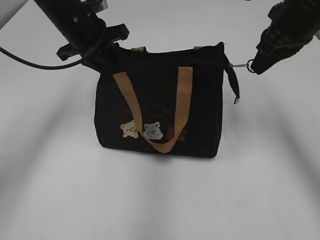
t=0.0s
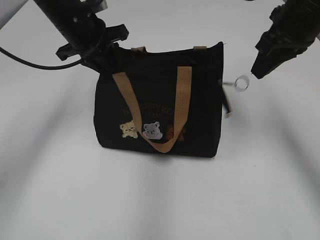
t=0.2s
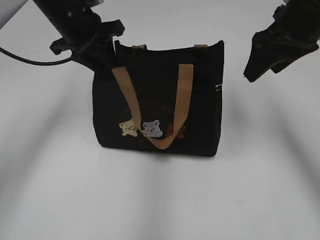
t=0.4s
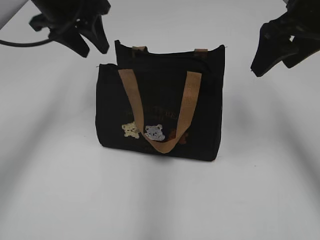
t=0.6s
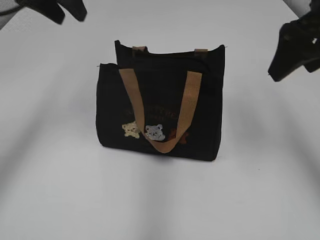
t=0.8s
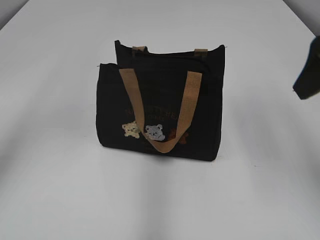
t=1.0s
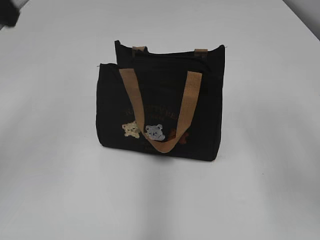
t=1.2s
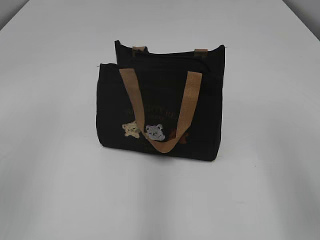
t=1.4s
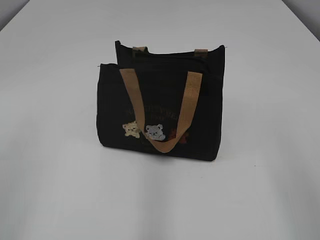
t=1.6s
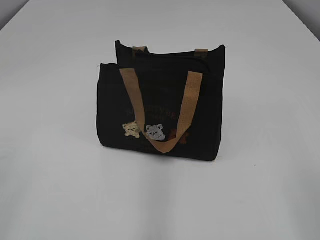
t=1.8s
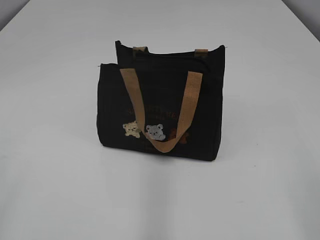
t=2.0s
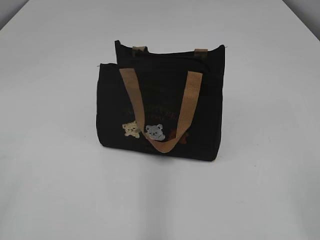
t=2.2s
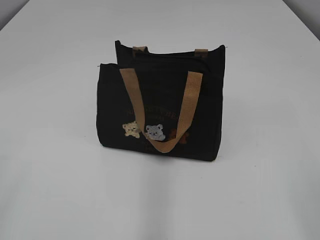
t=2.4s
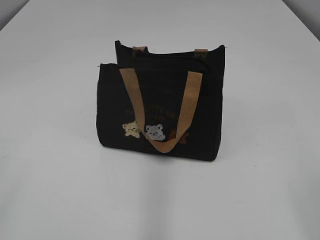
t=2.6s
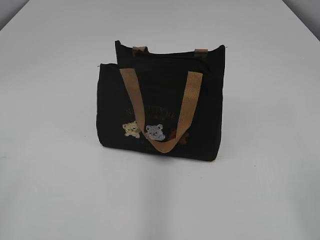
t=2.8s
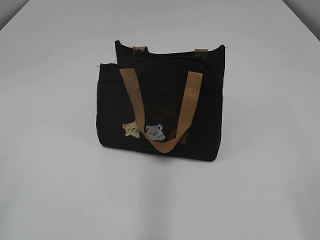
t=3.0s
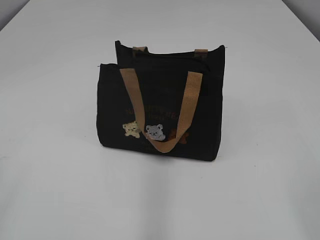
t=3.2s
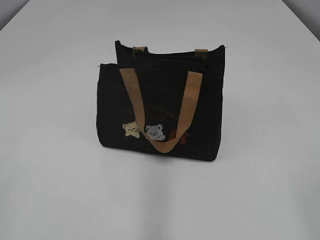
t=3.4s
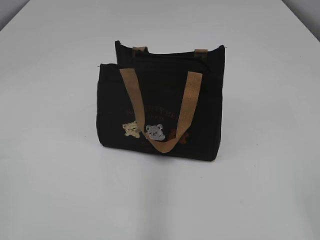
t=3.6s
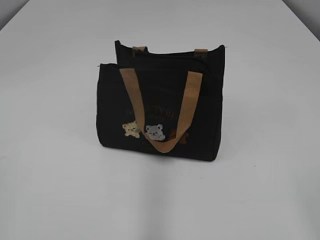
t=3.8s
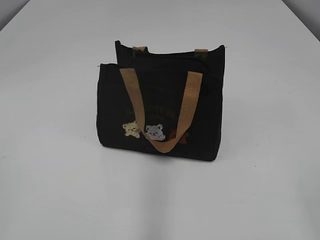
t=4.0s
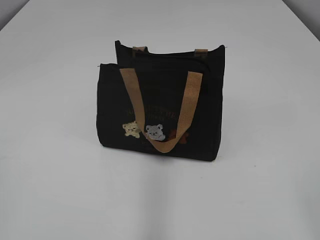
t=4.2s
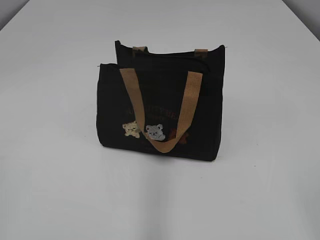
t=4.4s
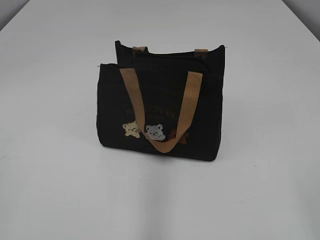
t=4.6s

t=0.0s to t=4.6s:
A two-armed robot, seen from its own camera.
t=0.0s to t=1.6s: The right gripper shifts approximately 25 cm backward, and opens its fingers; the left gripper heads backward and to the left, covering some 35 cm, and opens.

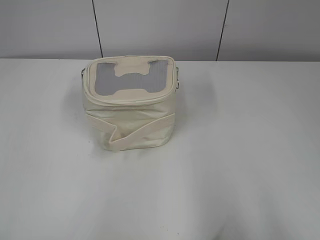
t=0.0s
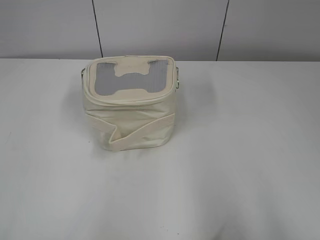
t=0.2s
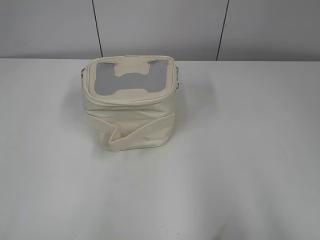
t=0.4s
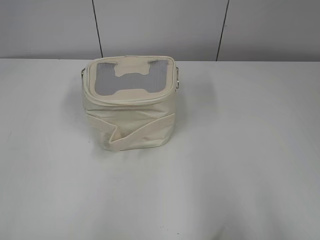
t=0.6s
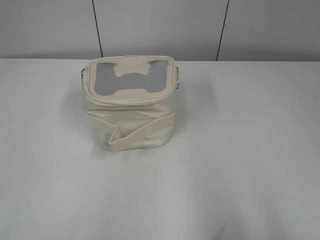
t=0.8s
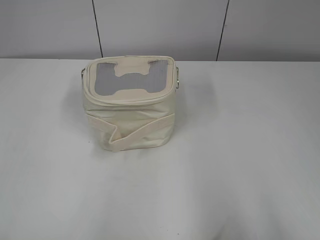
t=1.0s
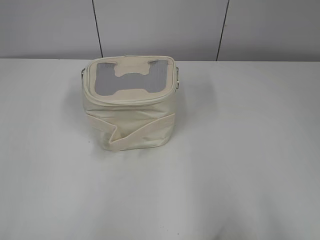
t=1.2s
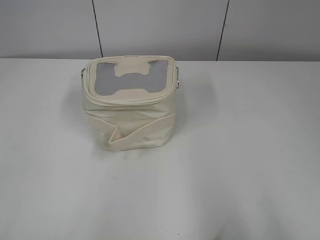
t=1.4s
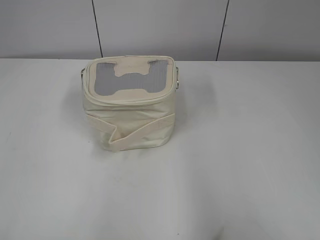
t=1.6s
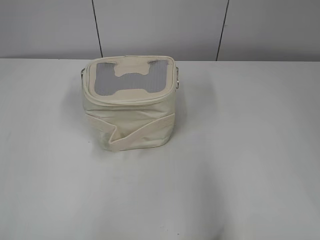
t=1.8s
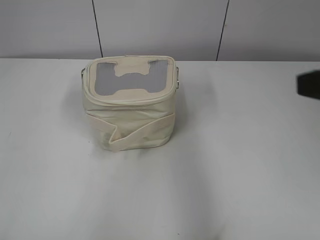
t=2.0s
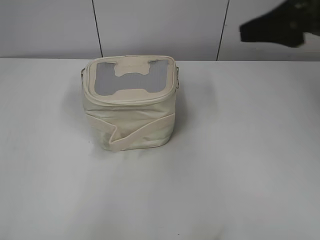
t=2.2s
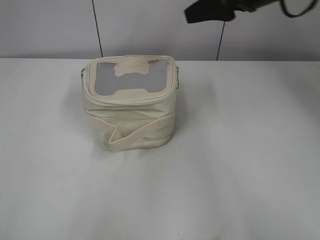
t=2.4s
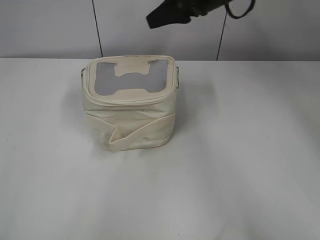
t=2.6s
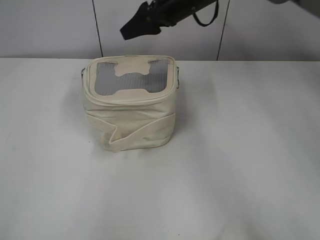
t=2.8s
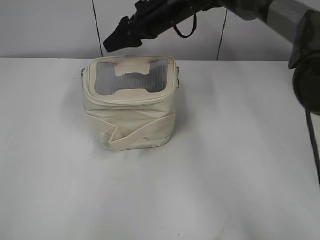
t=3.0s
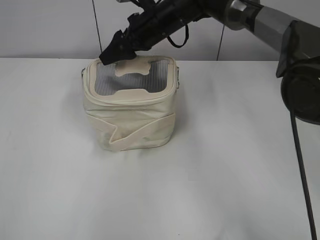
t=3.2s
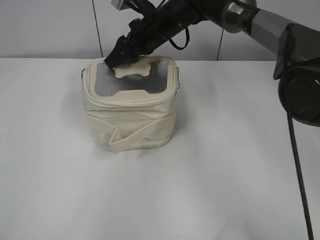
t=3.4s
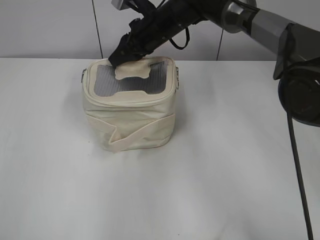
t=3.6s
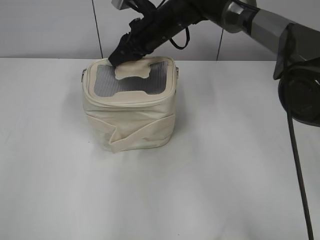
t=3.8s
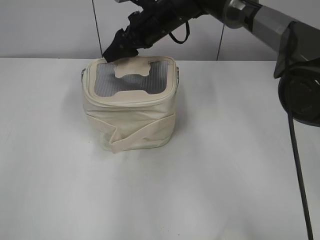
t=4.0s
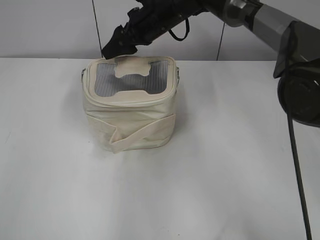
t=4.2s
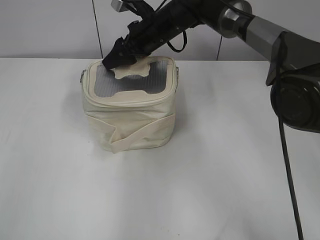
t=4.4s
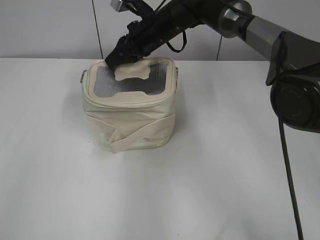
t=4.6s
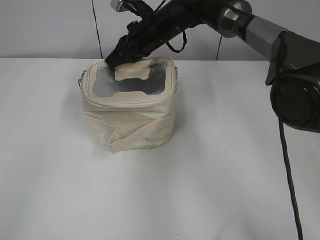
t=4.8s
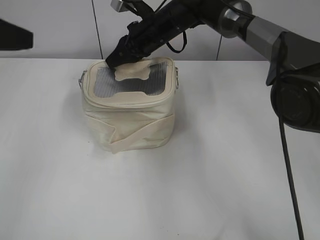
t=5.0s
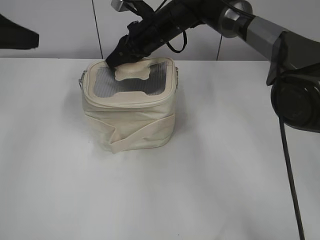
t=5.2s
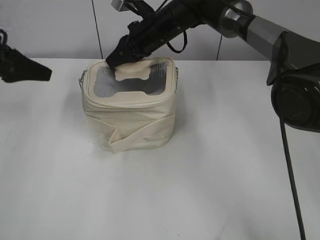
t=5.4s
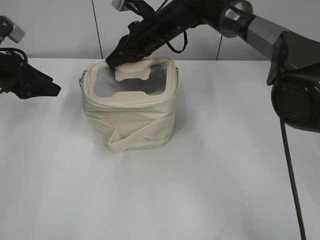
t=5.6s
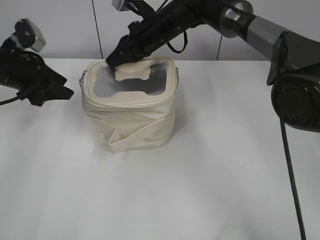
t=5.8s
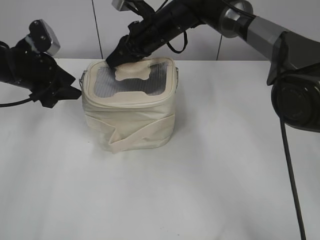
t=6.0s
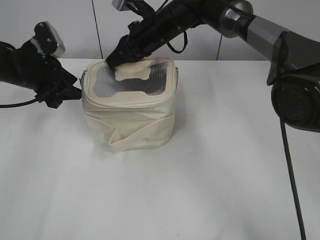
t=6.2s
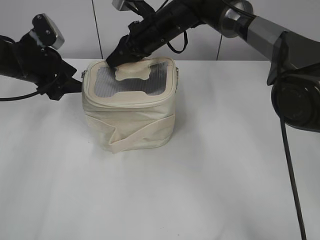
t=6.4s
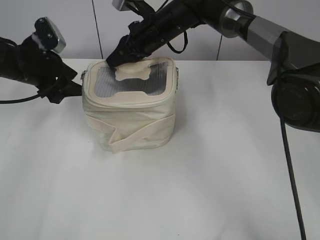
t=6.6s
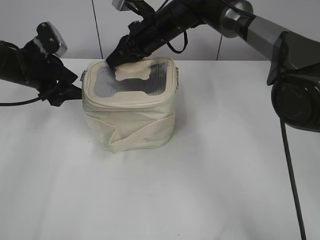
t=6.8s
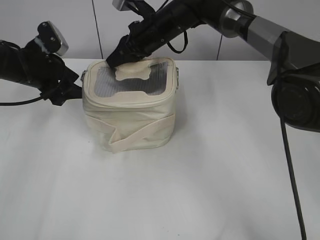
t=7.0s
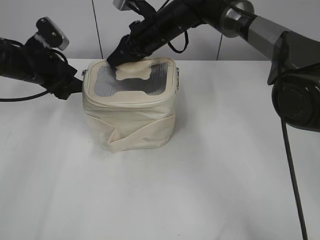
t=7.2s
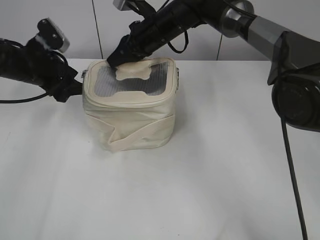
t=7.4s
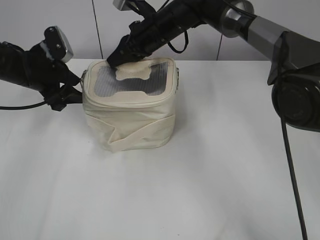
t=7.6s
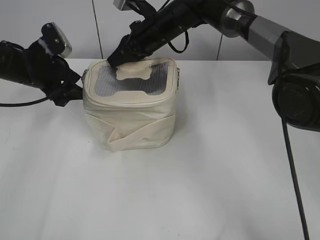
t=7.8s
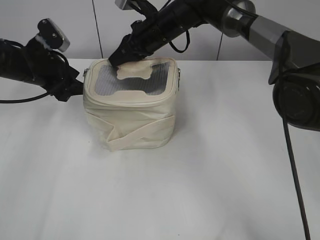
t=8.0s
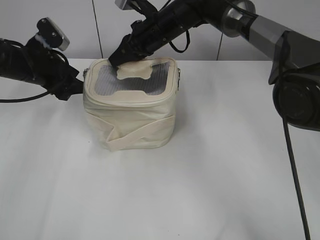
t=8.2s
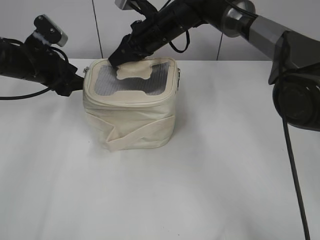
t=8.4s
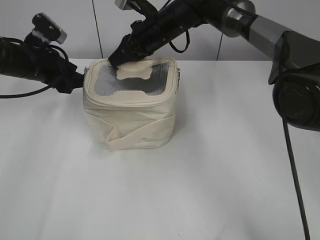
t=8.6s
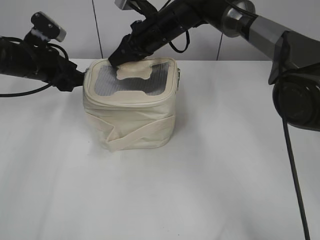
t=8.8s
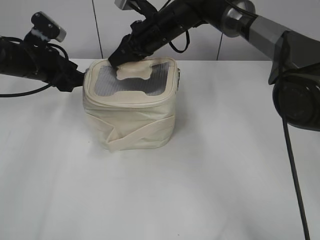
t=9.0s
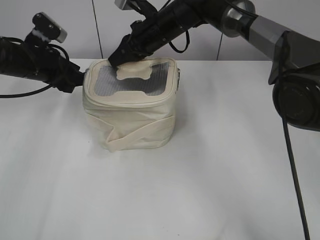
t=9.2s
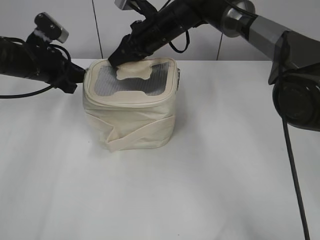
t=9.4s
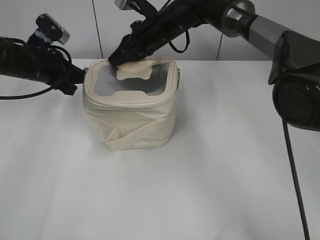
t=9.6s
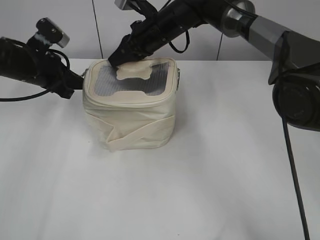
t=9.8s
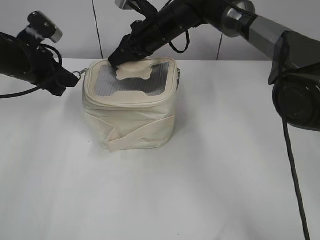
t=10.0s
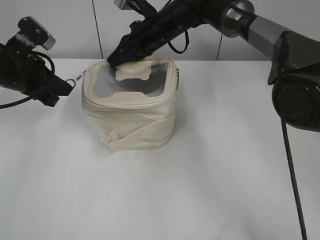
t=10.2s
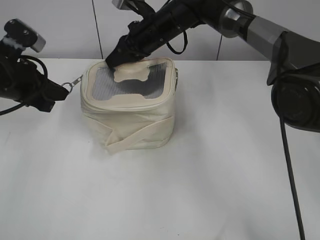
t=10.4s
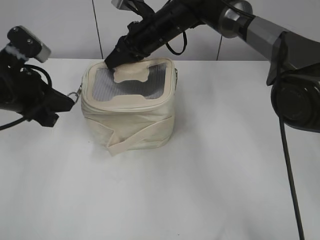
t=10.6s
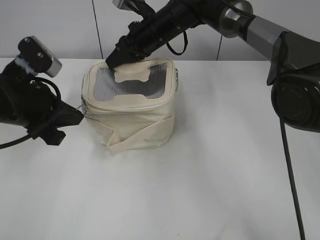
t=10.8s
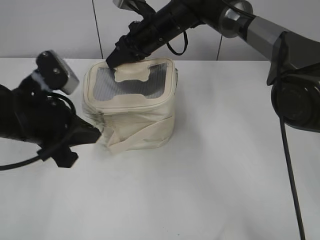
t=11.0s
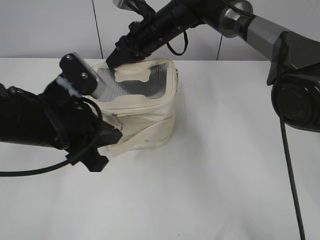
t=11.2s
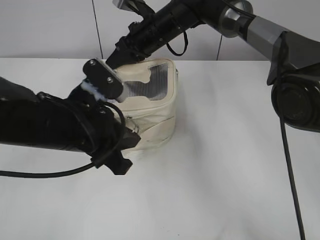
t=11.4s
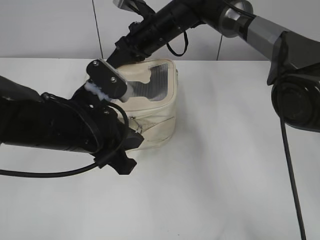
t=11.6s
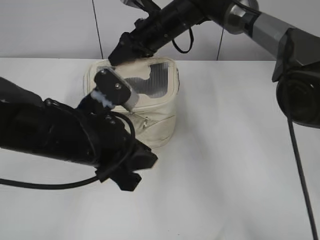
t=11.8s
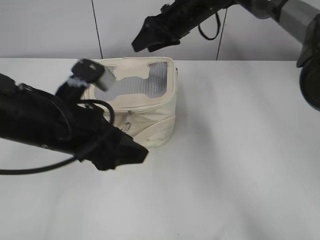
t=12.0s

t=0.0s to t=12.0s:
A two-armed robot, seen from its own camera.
Step, t=0.0s to t=11.6s: Zip up the bag with your left hand.
Step, t=11.8s to t=12.0s: Hold the bag with your right hand.
t=1.6s to t=3.0s: The right gripper goes about 50 cm forward and to the left.
t=3.0s to t=4.4s: The left gripper heads forward, covering about 10 cm; the right gripper closes and opens again.
t=4.4s to t=6.0s: The left gripper shifts some 30 cm forward and downward; the right gripper closes up.
t=6.0s to t=9.0s: The grippers stay close to where they were, moving slightly.
t=9.0s to t=10.4s: The left gripper goes about 10 cm backward, and closes up.
t=10.4s to t=12.0s: The right gripper goes approximately 5 cm to the right, and opens up. Meanwhile the left gripper travels to the right and backward by some 15 cm, and opens its fingers.

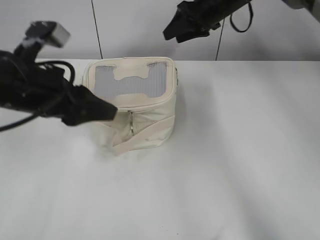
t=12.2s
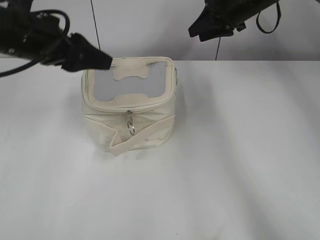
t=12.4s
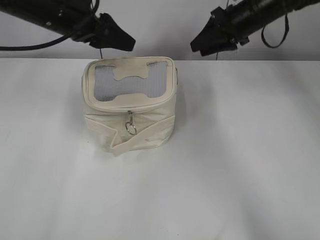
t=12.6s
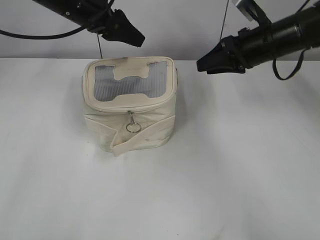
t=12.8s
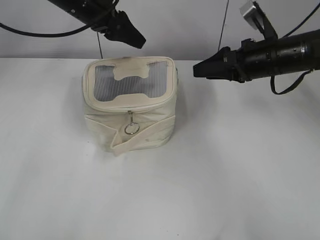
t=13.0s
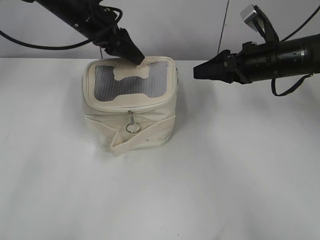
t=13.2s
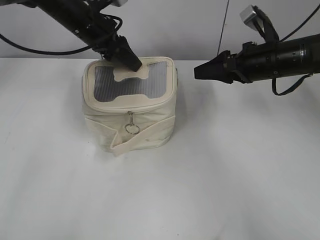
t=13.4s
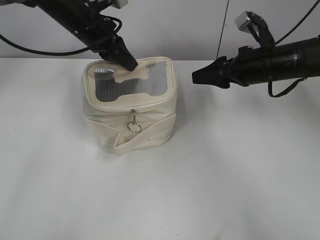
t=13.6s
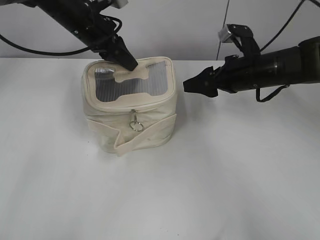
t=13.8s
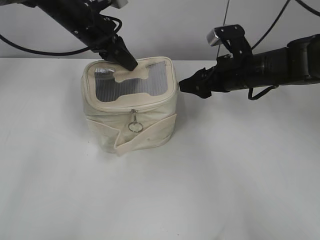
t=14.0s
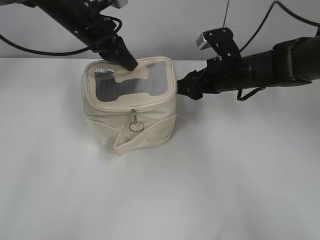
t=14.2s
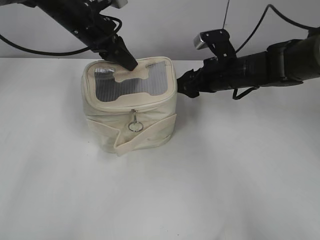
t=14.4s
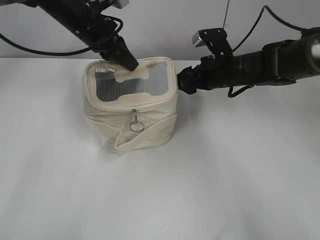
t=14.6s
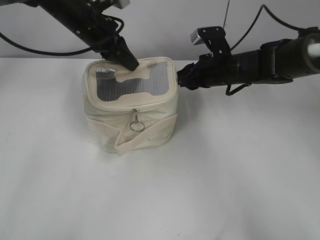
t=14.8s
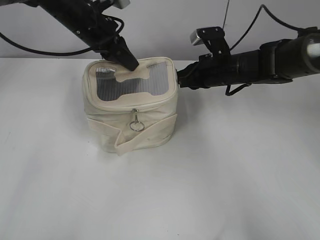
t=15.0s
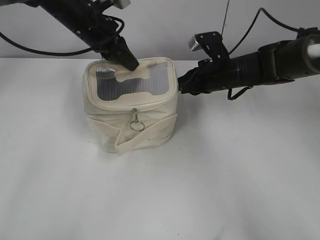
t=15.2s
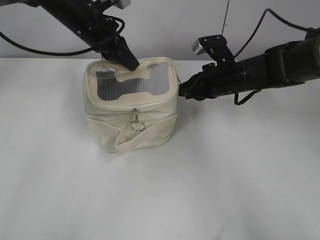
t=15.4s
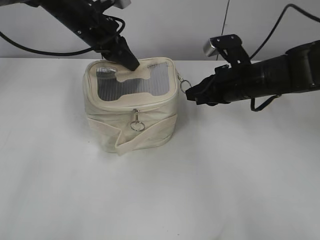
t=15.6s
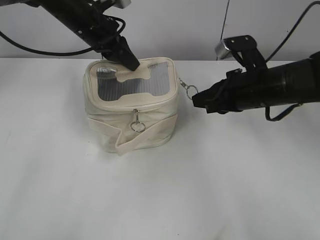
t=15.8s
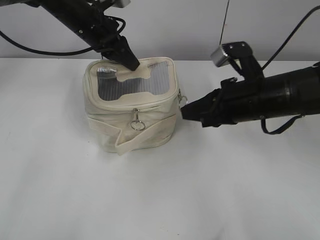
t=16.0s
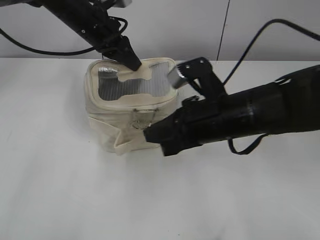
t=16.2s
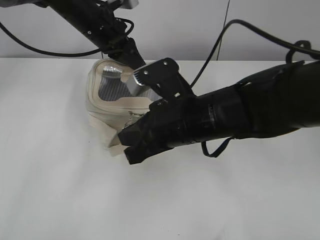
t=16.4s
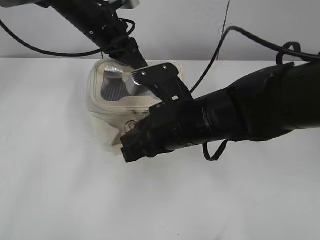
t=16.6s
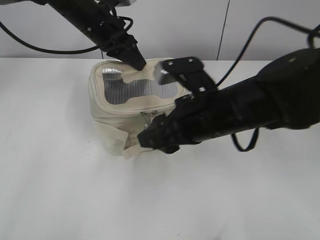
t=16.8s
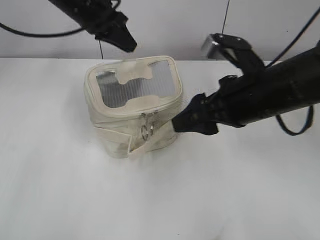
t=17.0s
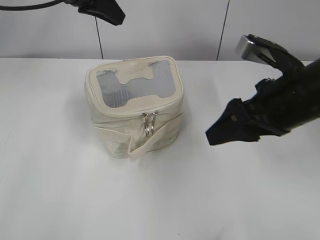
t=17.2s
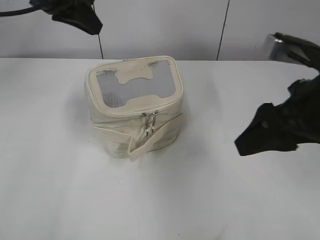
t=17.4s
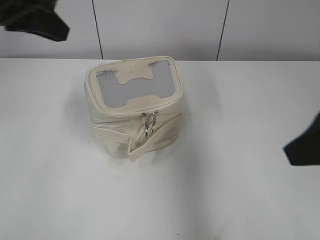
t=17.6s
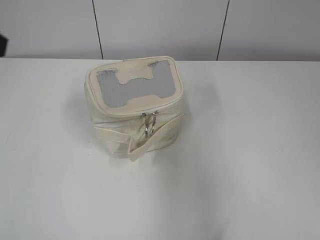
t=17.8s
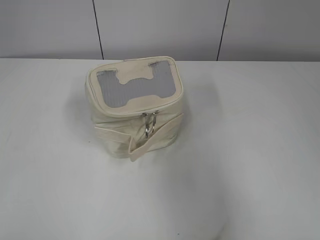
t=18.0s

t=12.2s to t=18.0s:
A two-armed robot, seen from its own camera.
Step, t=12.2s to t=16.6s: Zip up the bag with your right hand.
t=12.2s to t=13.6s: The right gripper is displaced backward, to the right and downward by about 15 cm; the left gripper travels forward by approximately 20 cm, and closes up.
t=13.6s to t=15.0s: The right gripper shifts roughly 5 cm to the left, and closes its fingers.
t=15.0s to t=16.6s: The right gripper moves backward and to the left, about 20 cm.
t=16.6s to t=18.0s: The left gripper moves backward, to the left and upward, some 40 cm; the right gripper travels to the right, backward and upward by some 30 cm, and opens.
